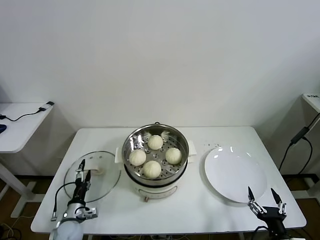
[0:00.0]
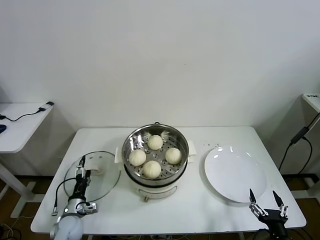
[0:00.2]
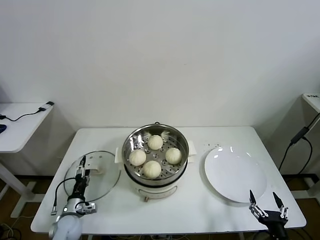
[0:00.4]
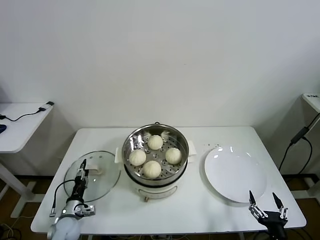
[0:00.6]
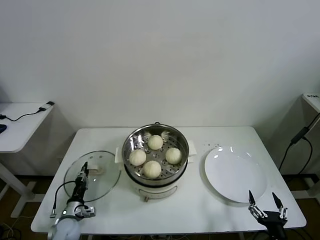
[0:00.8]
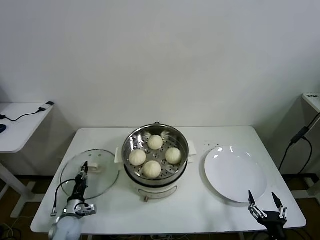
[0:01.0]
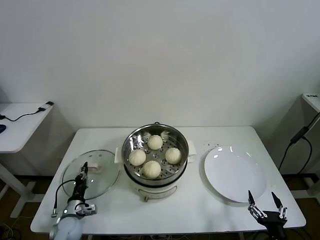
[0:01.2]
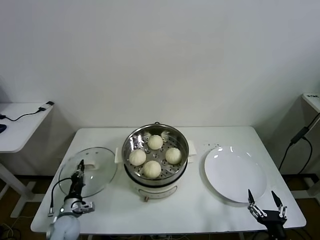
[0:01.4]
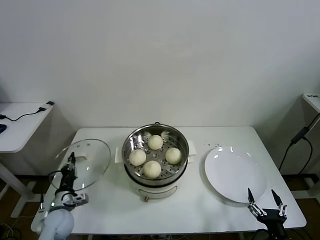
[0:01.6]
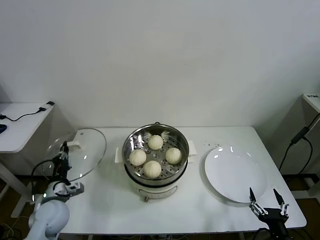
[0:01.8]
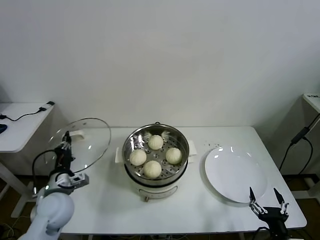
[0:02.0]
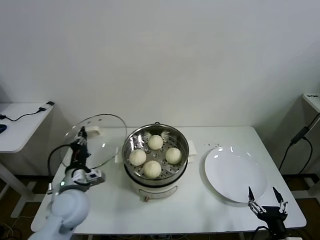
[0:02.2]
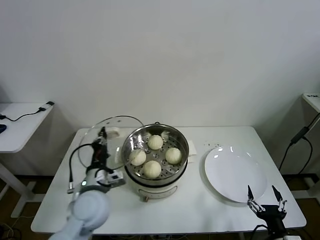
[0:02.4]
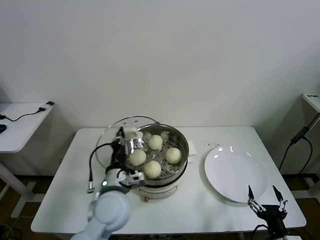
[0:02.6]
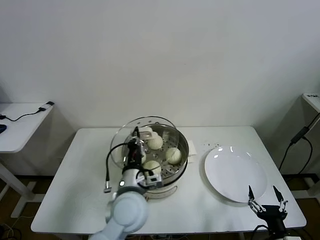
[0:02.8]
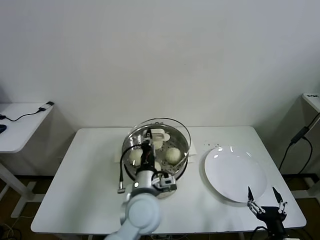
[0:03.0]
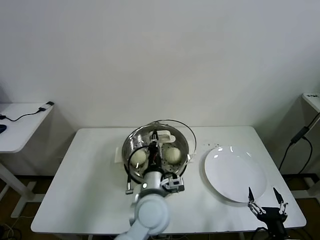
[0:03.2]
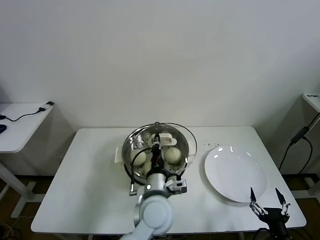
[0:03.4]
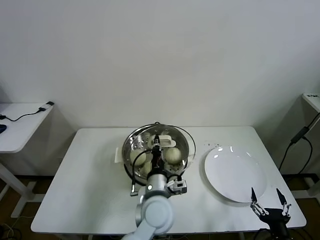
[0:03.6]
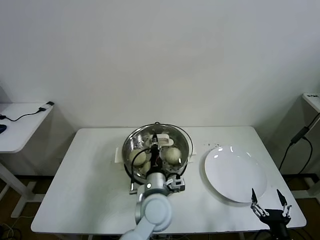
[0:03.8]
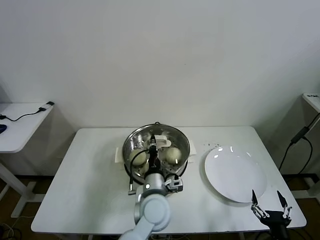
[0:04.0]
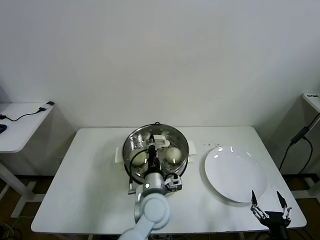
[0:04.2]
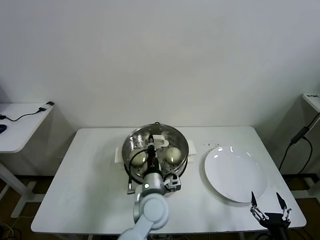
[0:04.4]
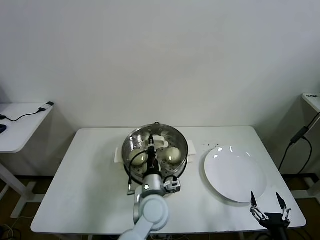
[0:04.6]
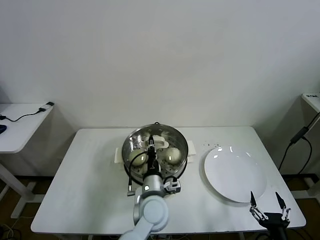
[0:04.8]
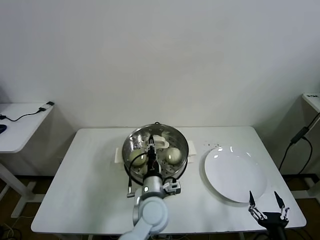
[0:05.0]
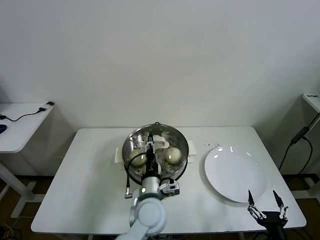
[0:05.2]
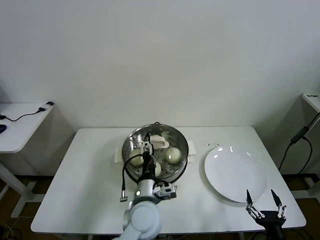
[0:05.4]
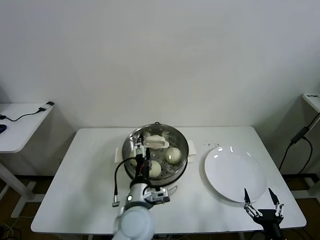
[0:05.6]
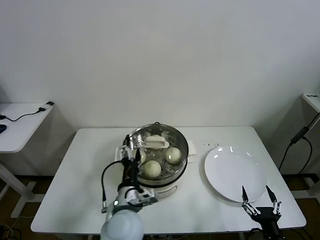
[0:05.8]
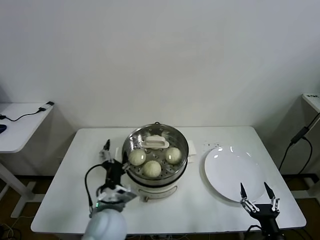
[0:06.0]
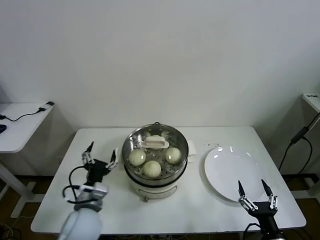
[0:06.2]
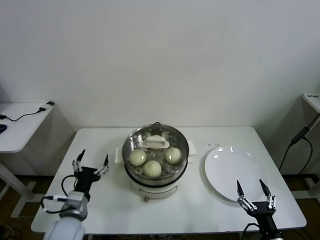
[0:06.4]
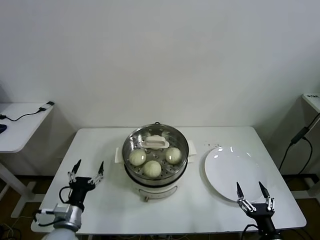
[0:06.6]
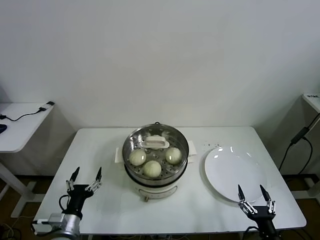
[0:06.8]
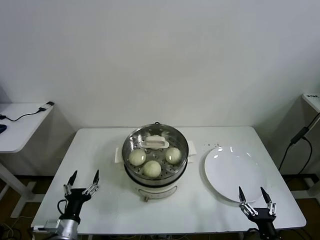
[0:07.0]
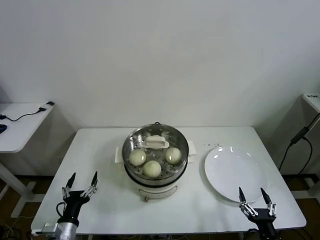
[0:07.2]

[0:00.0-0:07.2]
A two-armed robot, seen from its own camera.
Task of the whole recording: take steamed baozi put them in steamer then cover it.
Step, 0:01.2 to 0:05.0: Place the pot lid on the steamer with left gripper.
0:00.0 to 0:01.4: The left gripper closes its fingers.
0:01.4 to 0:02.8: The left gripper shifts some 35 cm to the right and upward.
0:02.8 to 0:04.4: The left gripper is displaced to the right and downward by about 10 cm.
0:04.4 to 0:05.8: The left gripper travels to the left and backward by some 10 cm, and opens its fingers.
0:05.8 to 0:07.2: The left gripper shifts roughly 25 cm to the left and downward.
